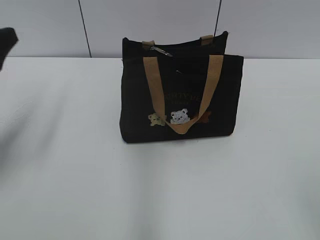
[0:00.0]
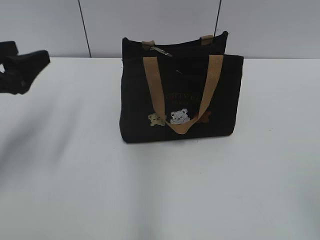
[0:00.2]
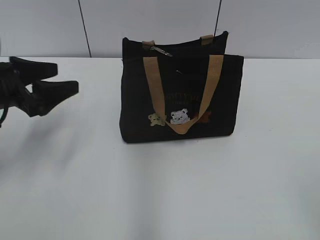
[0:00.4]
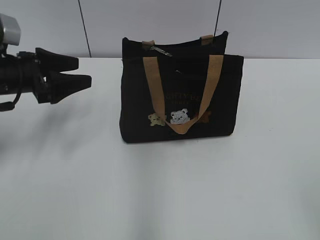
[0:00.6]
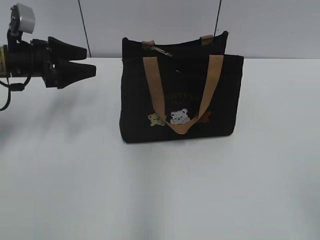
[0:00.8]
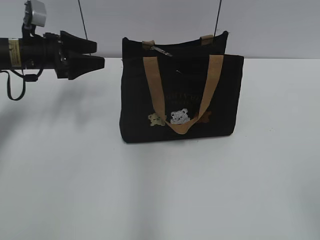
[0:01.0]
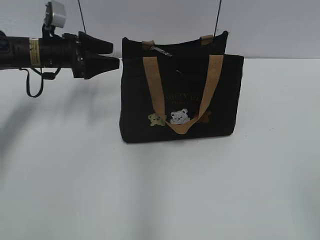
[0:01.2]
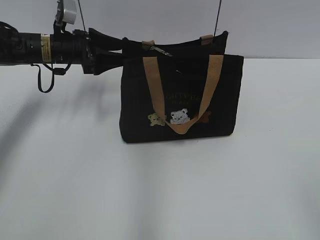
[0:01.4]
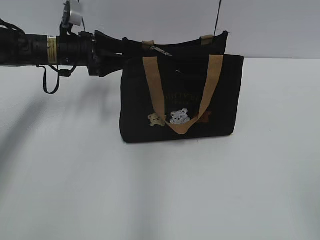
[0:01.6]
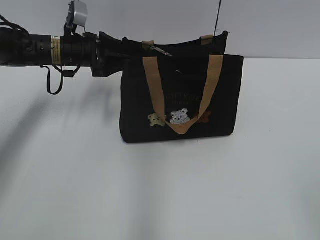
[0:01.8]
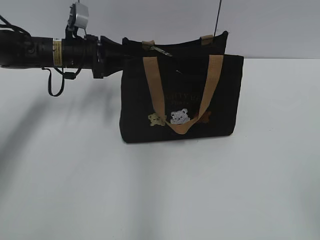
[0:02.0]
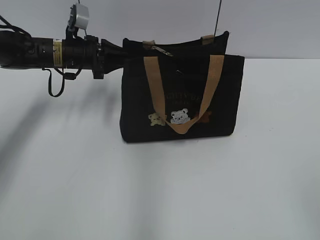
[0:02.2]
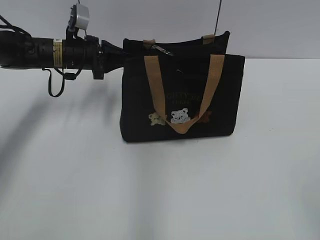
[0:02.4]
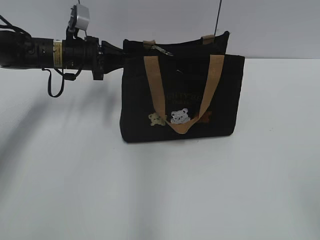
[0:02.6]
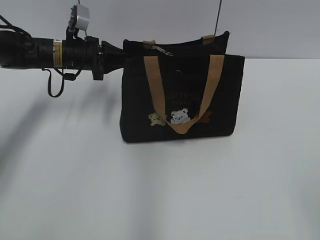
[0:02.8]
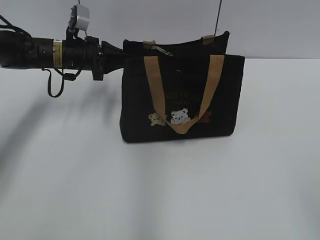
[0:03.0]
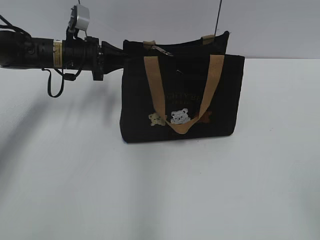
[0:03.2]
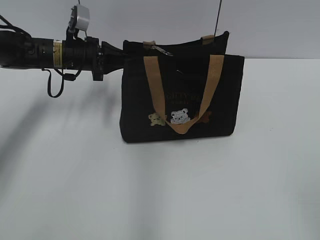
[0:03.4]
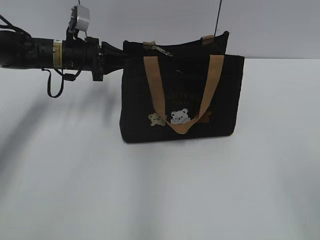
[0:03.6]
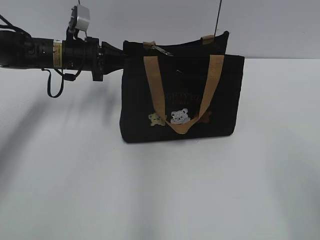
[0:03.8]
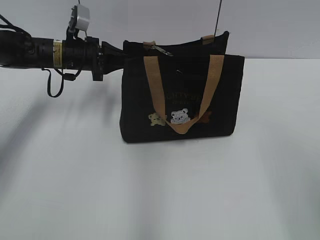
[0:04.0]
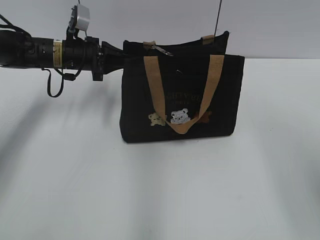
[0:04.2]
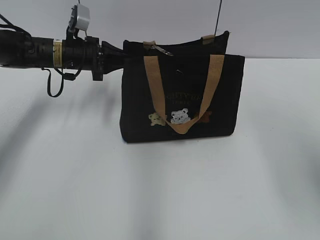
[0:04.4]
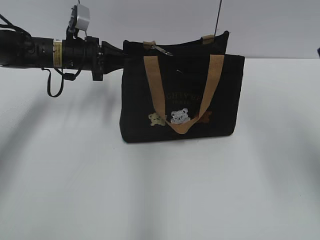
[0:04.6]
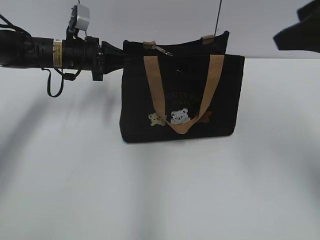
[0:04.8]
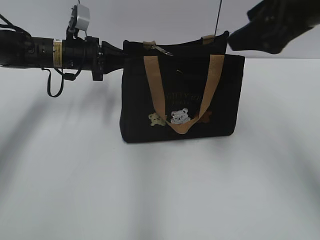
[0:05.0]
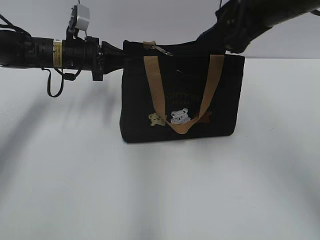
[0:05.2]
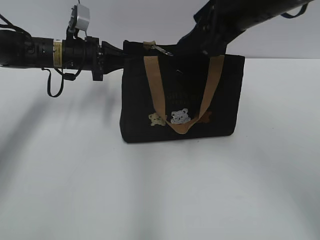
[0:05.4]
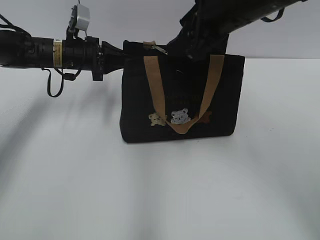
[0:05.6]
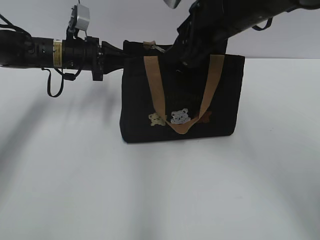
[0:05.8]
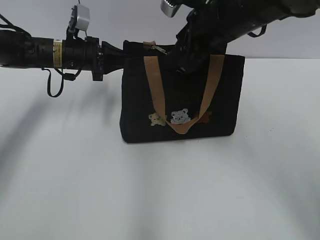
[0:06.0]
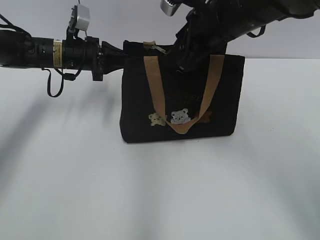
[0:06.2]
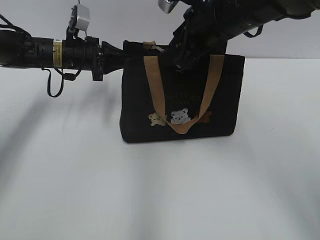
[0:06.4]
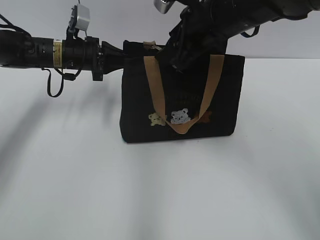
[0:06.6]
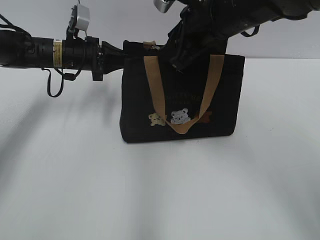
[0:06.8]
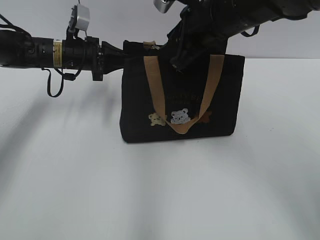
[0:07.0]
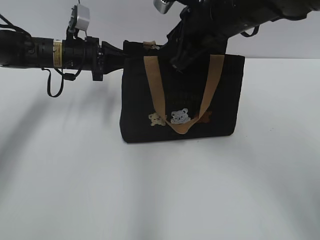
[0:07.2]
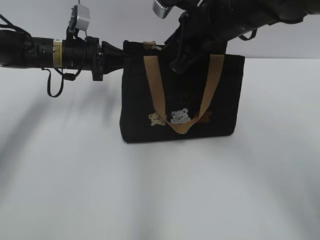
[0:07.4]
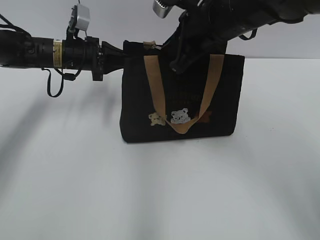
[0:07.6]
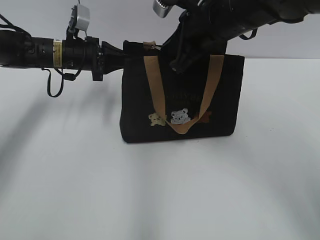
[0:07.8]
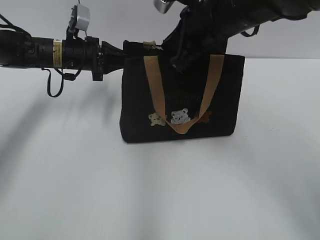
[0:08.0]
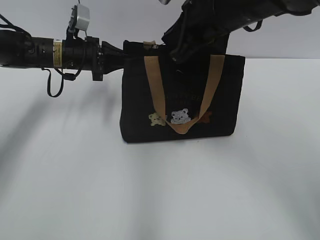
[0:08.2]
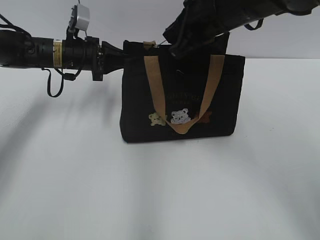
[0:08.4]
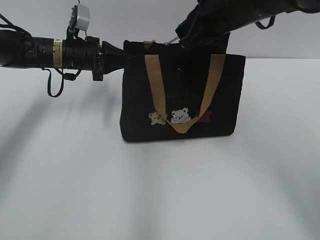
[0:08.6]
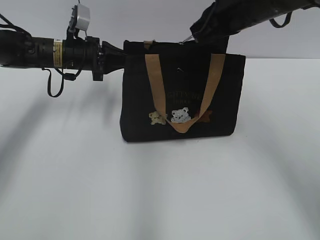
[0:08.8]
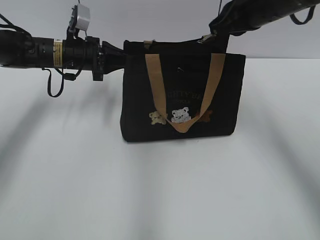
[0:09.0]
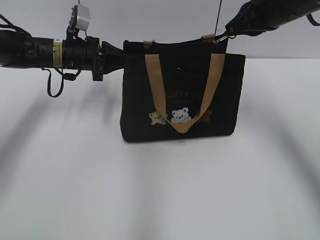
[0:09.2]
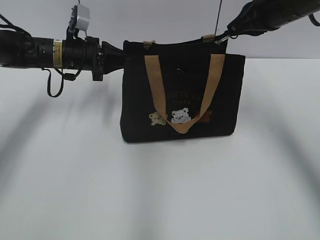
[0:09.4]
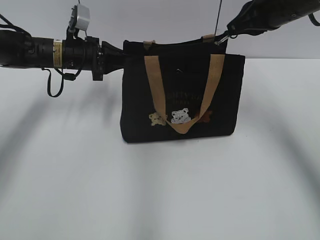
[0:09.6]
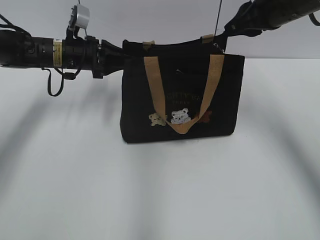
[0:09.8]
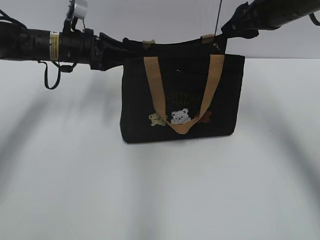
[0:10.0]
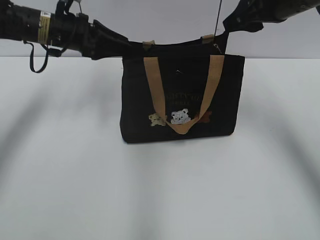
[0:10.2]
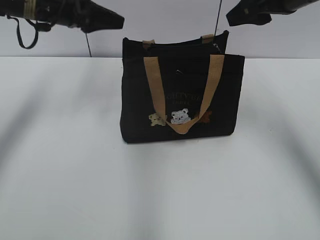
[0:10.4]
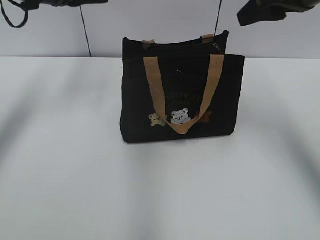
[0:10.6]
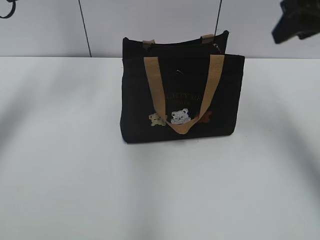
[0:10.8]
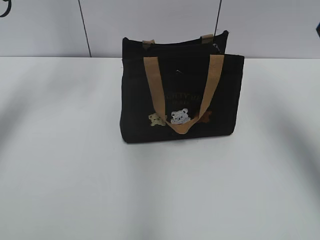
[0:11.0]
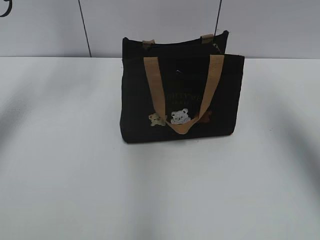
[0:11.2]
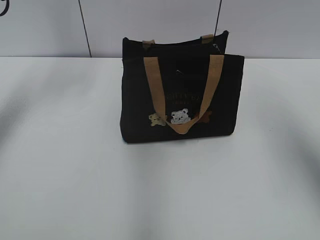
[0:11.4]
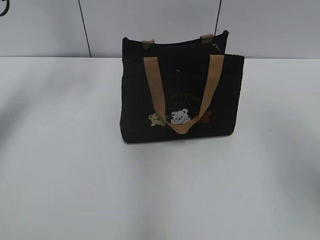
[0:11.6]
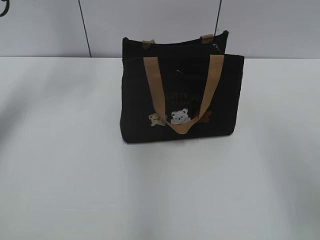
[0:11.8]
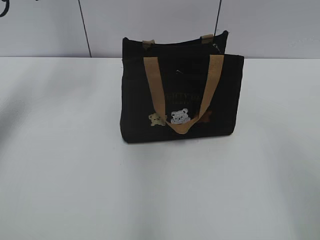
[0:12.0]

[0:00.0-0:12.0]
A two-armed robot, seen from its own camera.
Step, 0:00.0 to 0:09.8: Pull open the zipper with your right hand.
Step, 0:10.0 to 0:10.2: Hold the bag with your left hand.
0:00.0 to 0:01.6: The left gripper heads forward, to the right and downward, covering some 25 cm.
0:01.6 to 0:03.0: The left gripper closes its fingers.
0:04.4 to 0:06.0: The right gripper heads forward and to the left, covering about 25 cm.
0:06.0 to 0:07.6: The right gripper closes its fingers.
0:07.6 to 0:09.0: The right gripper moves to the right, approximately 5 cm.
0:09.0 to 0:10.4: The left gripper heads upward, covering roughly 10 cm, and opens up. The right gripper moves approximately 5 cm, and opens up.
0:10.4 to 0:12.0: The right gripper heads backward, covering some 25 cm. The left gripper is displaced upward and to the left by some 10 cm.

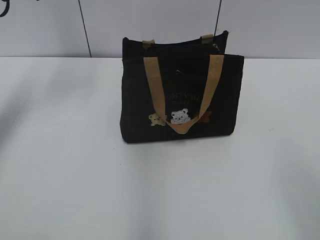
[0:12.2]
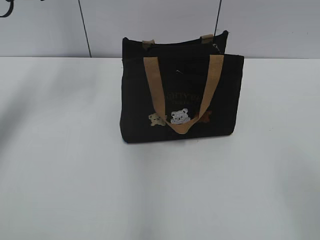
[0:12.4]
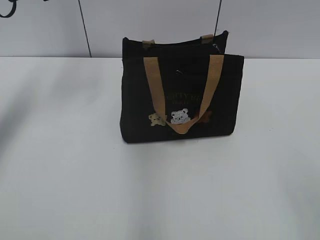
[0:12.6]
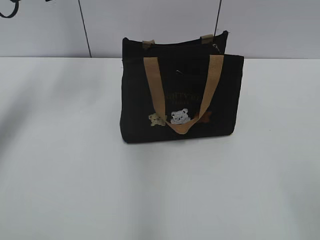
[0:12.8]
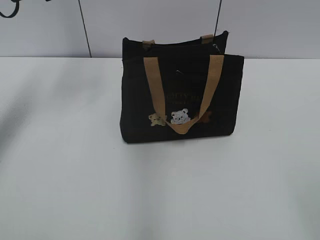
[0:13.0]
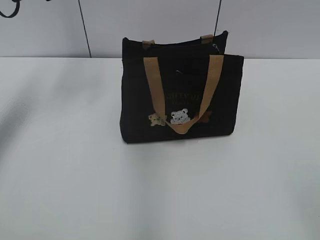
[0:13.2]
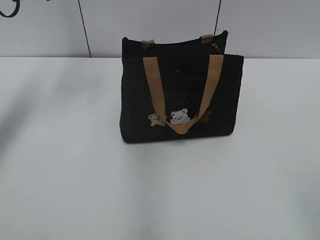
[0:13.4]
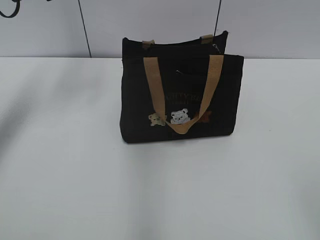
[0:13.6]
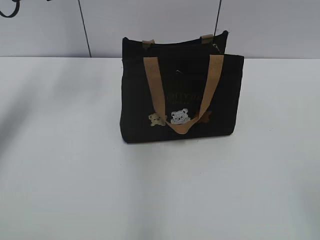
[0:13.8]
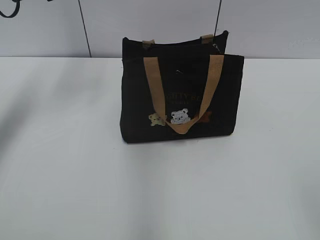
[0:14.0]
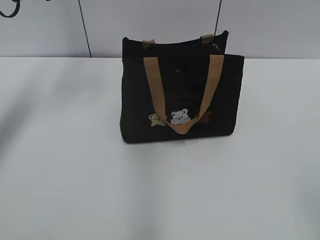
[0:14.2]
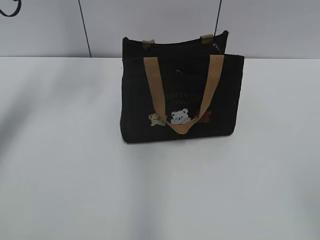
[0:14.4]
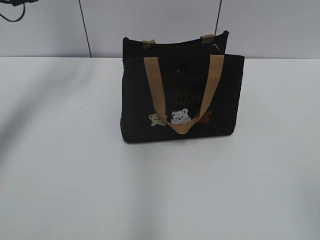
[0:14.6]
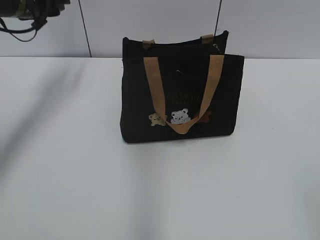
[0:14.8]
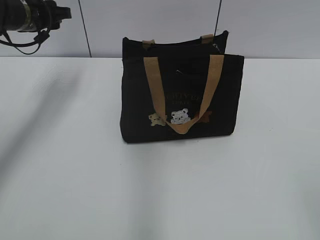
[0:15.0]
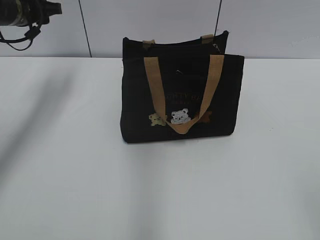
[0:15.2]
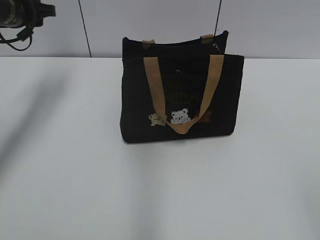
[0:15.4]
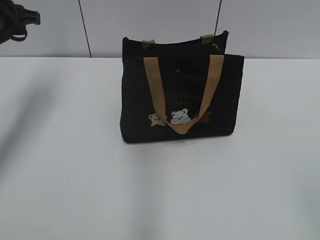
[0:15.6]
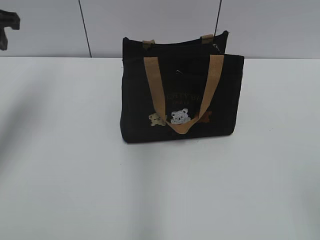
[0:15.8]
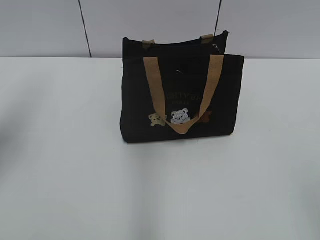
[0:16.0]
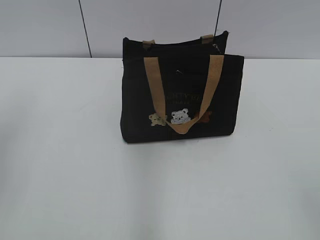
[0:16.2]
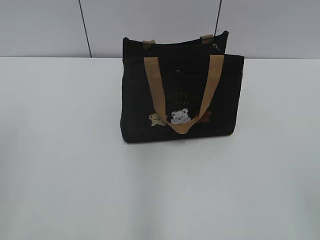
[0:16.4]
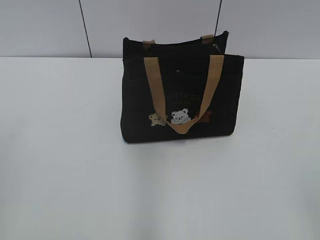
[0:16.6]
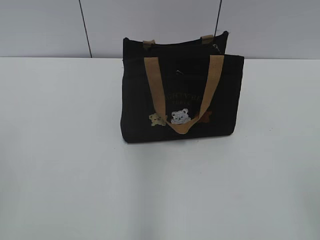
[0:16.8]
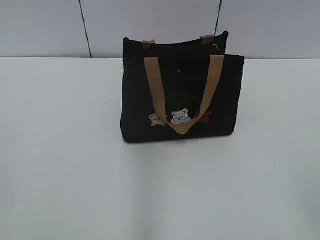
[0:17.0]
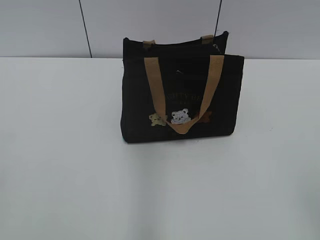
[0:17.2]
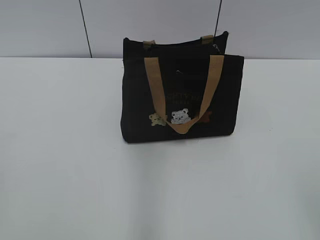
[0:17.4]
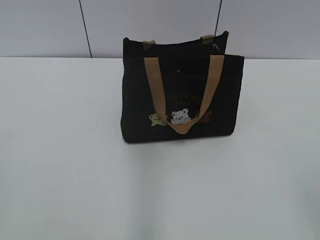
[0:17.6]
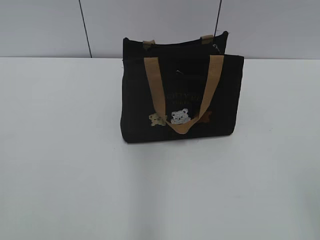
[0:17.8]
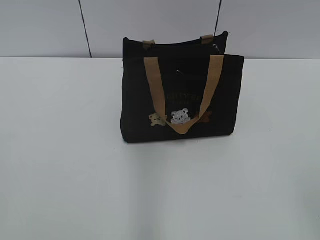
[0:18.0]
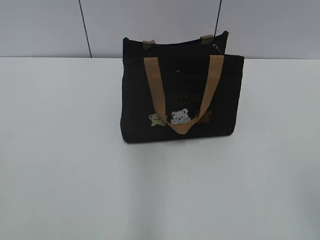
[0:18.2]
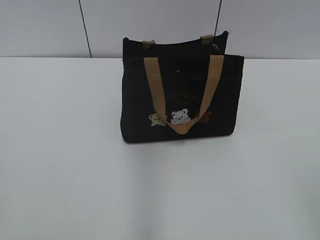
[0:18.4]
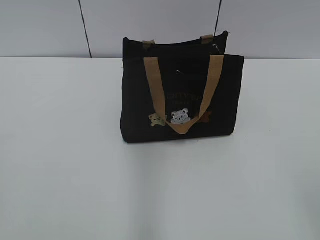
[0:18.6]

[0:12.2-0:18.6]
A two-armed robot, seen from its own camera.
0:13.8 to 0:15.4: The left gripper moves downward, approximately 5 cm.
0:15.4 to 0:17.0: The left gripper heads backward, covering roughly 40 cm.

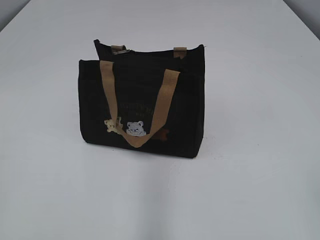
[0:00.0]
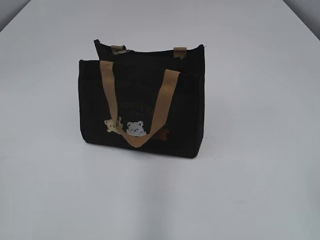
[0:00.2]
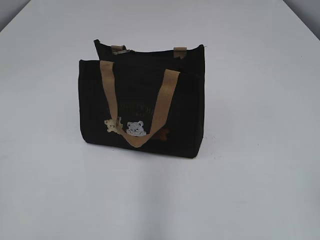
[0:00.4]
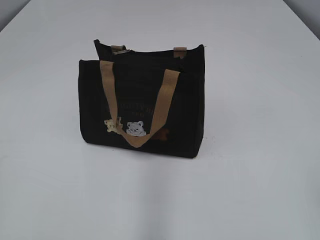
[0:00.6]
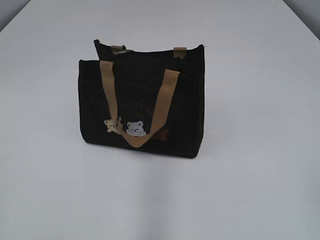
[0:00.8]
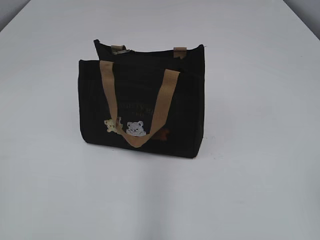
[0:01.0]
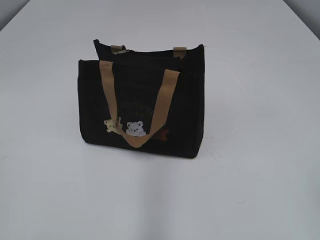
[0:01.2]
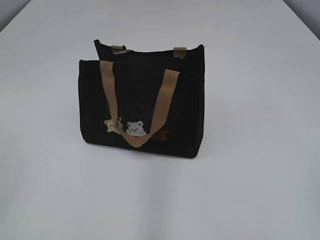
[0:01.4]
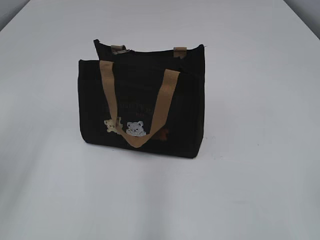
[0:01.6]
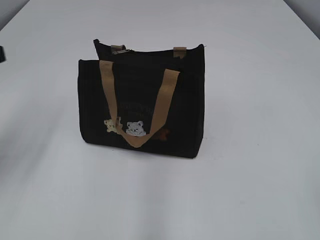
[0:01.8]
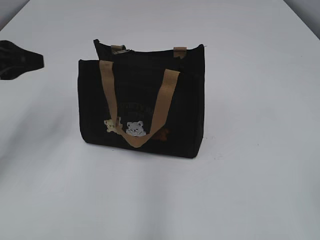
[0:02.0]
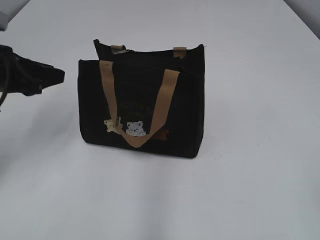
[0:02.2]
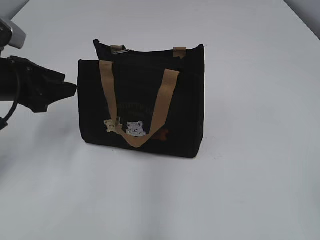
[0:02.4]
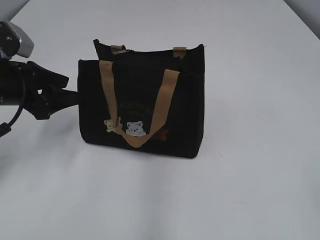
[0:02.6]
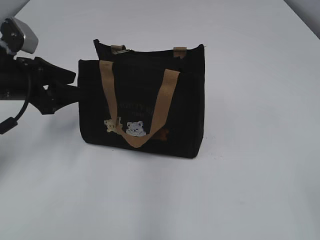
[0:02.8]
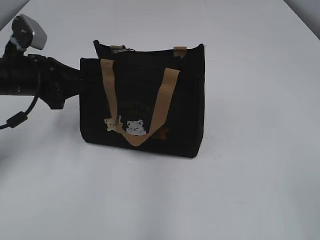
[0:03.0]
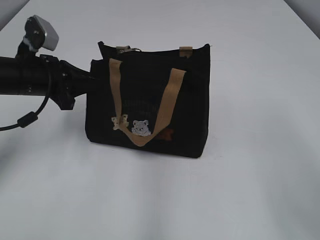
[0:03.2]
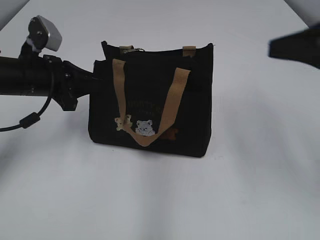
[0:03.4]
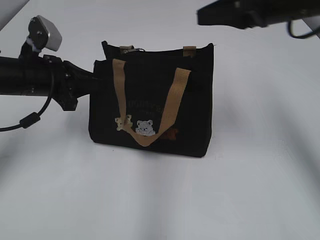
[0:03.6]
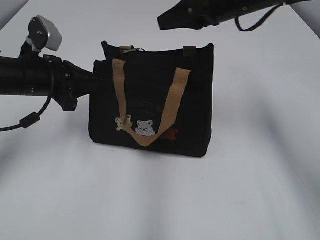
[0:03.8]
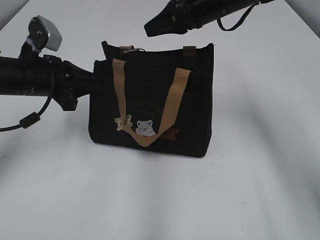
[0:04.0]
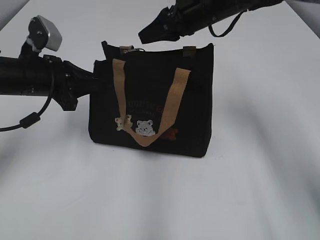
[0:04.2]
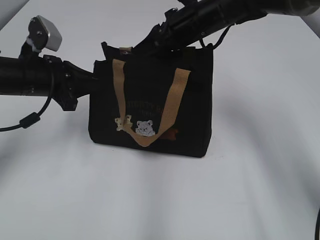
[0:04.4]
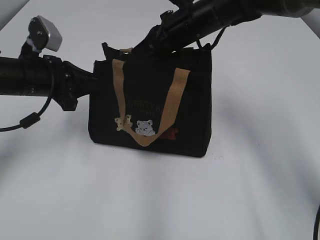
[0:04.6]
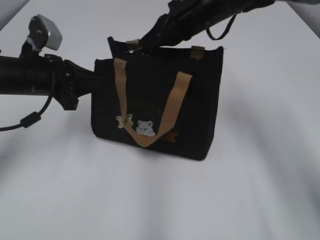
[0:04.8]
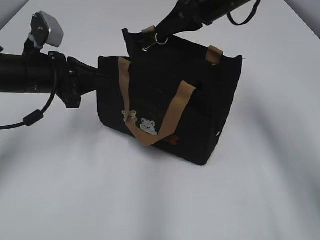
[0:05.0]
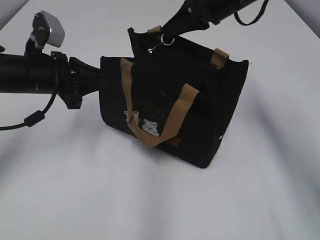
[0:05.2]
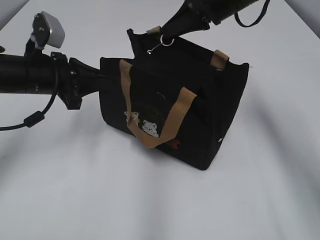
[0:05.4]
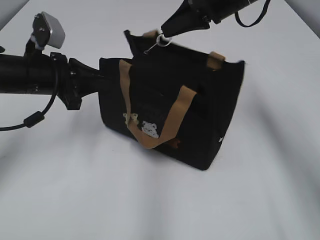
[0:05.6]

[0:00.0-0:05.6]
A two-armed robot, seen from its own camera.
0:01.4 to 0:02.8: The left gripper travels forward and downward by some 30 cm, and opens.
0:02.8 to 0:04.2: The right gripper shifts approximately 50 cm forward. The left gripper closes up.
0:04.2 to 0:05.6: The right gripper changes place by some 5 cm, and closes.
